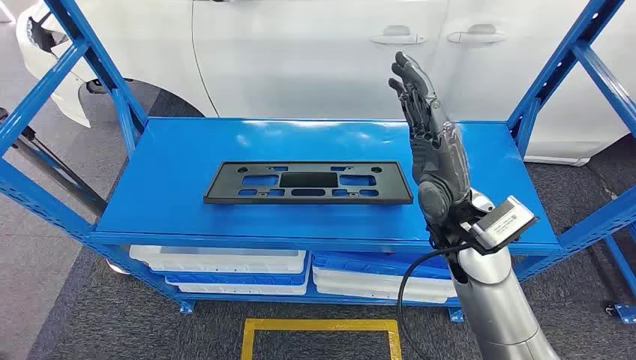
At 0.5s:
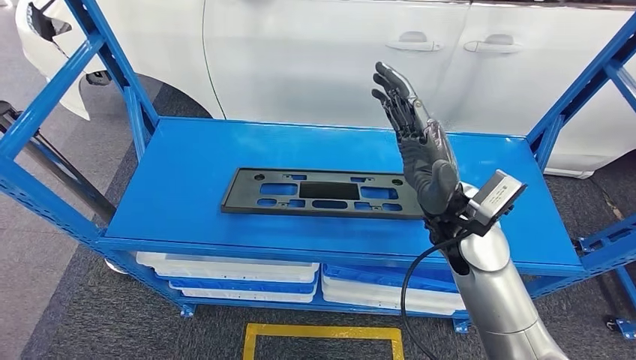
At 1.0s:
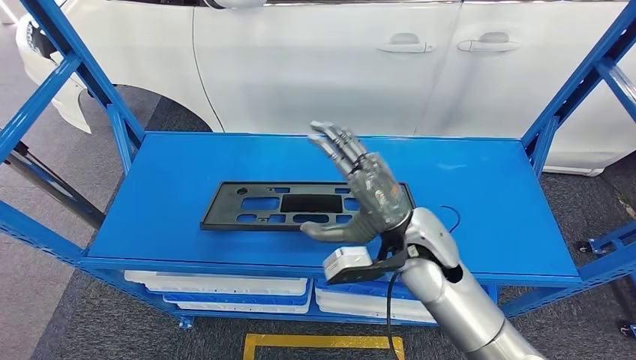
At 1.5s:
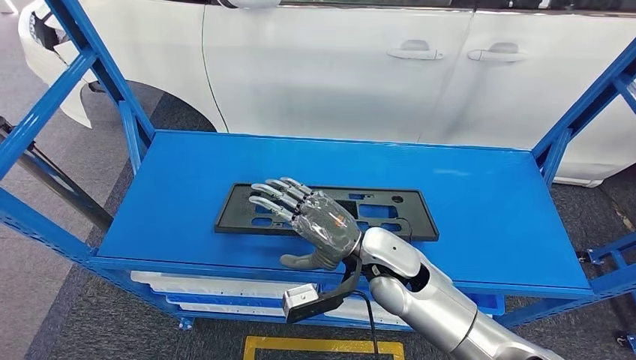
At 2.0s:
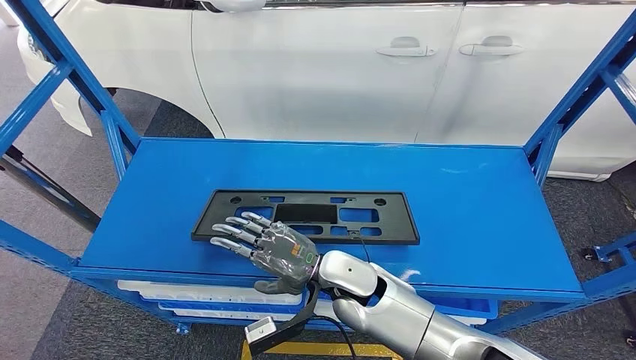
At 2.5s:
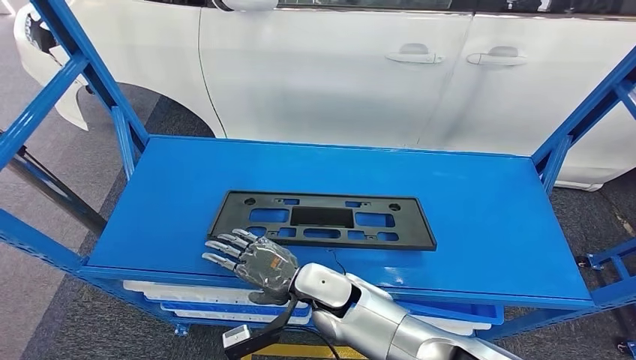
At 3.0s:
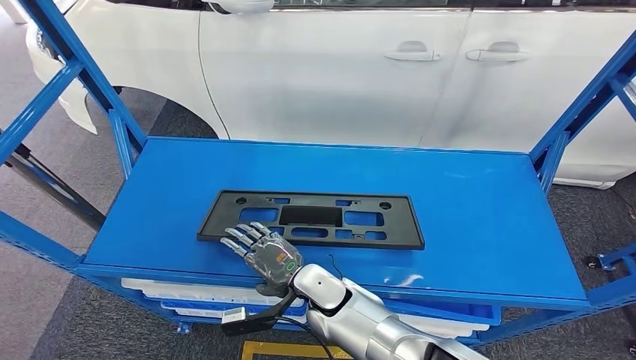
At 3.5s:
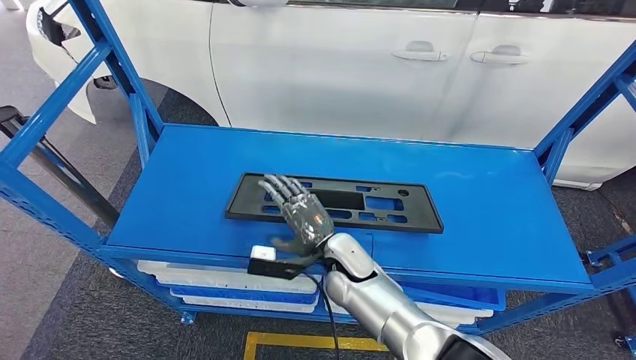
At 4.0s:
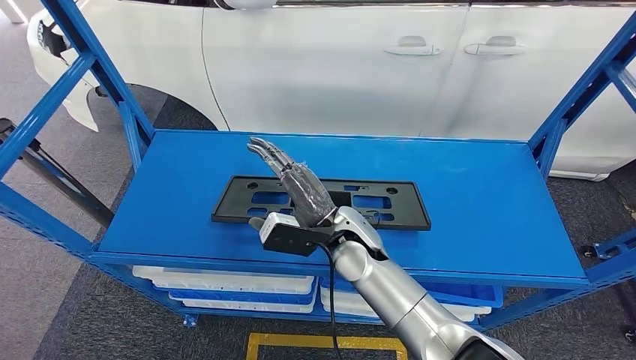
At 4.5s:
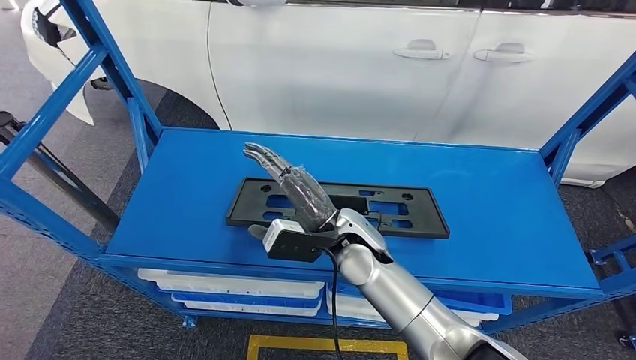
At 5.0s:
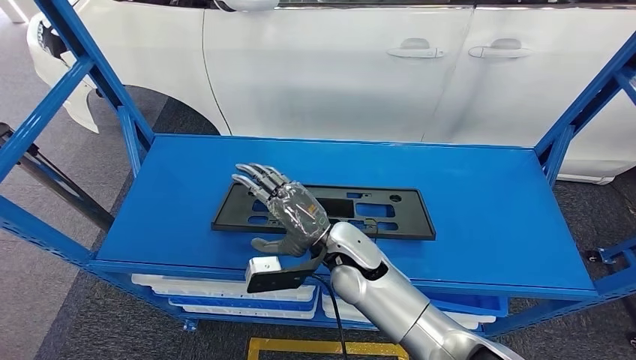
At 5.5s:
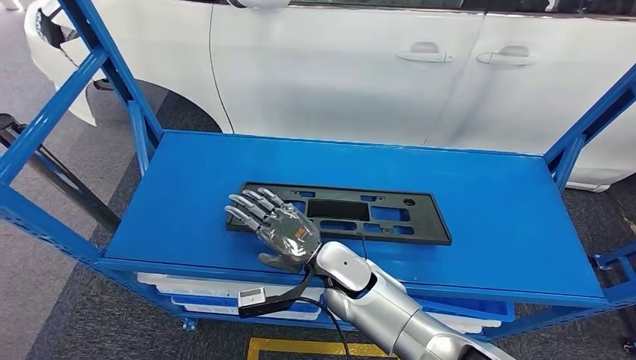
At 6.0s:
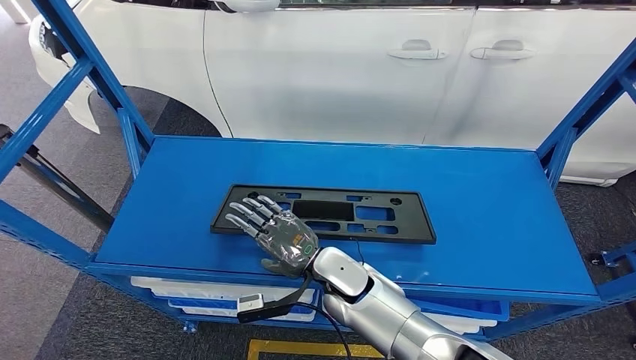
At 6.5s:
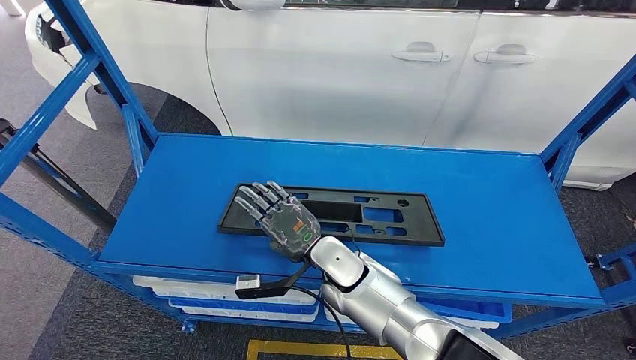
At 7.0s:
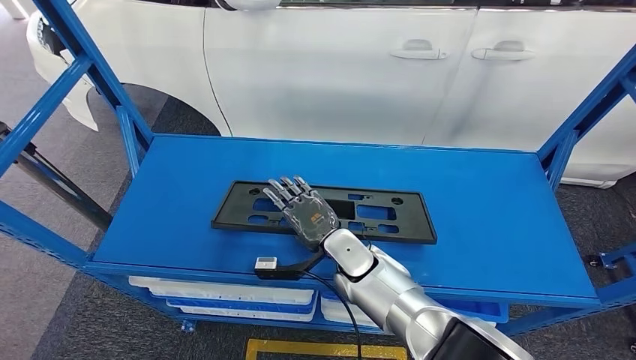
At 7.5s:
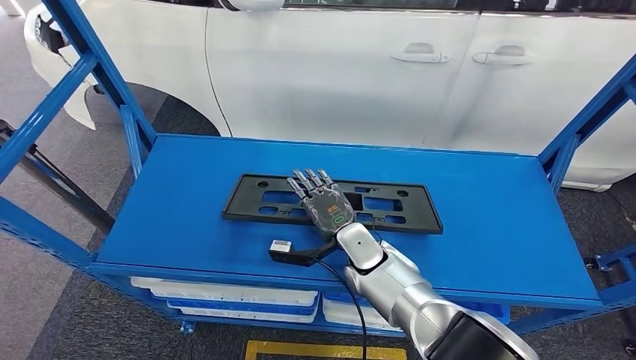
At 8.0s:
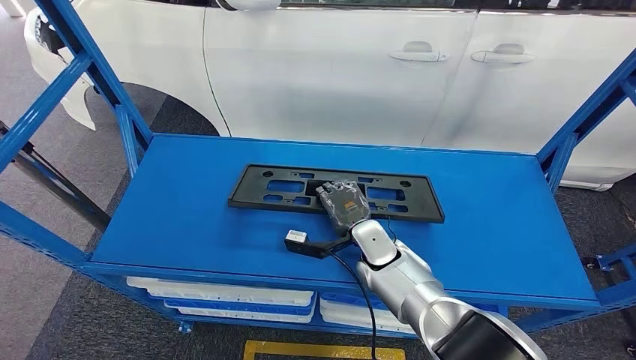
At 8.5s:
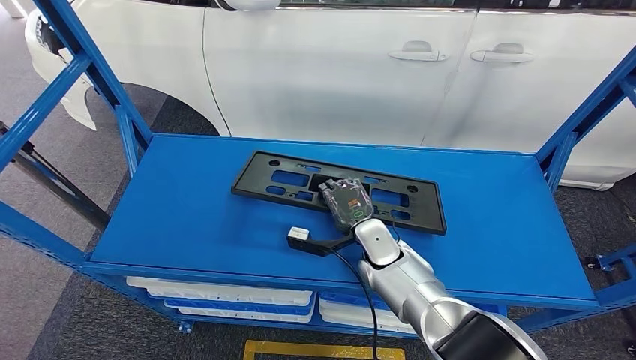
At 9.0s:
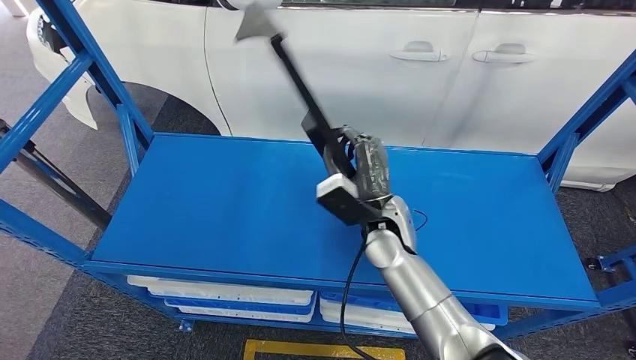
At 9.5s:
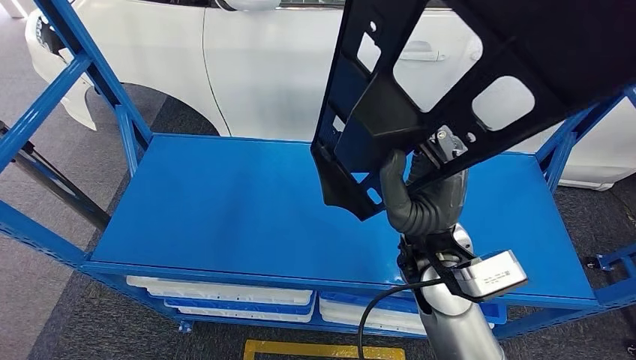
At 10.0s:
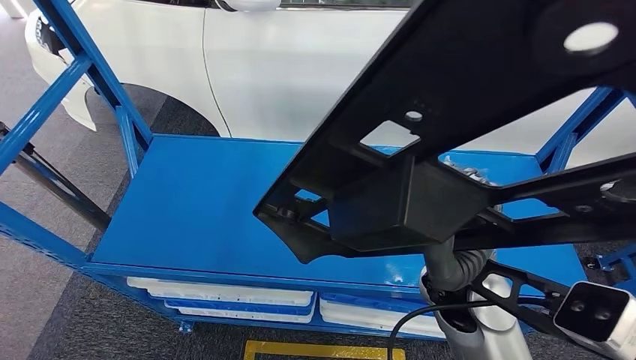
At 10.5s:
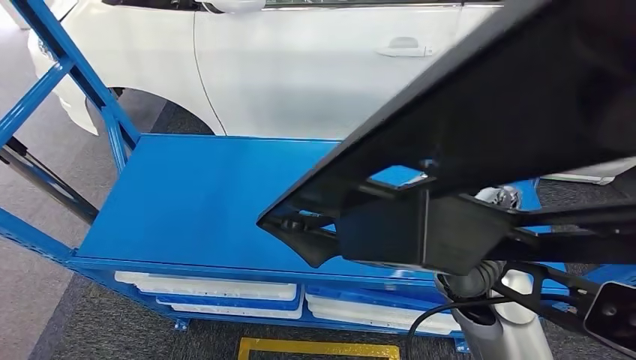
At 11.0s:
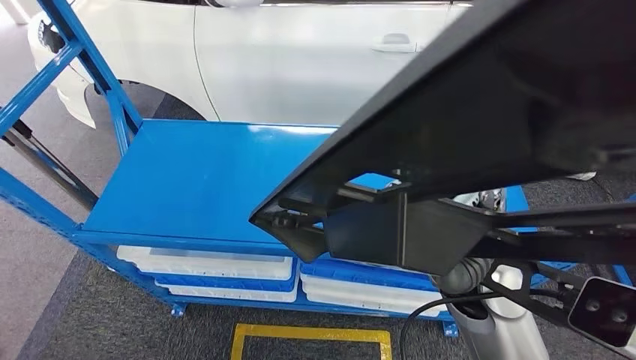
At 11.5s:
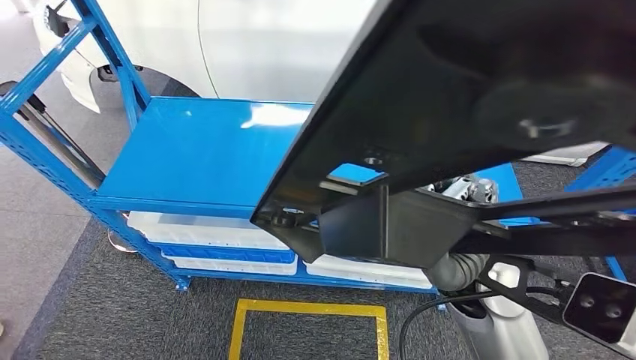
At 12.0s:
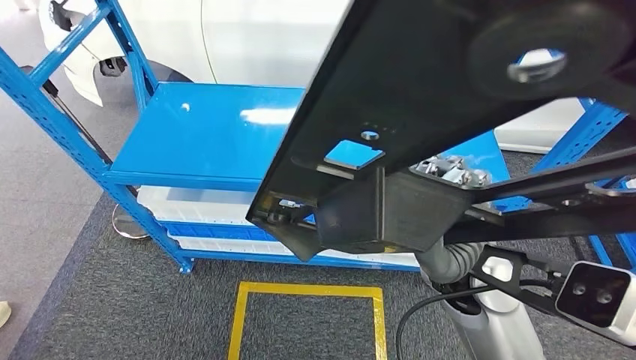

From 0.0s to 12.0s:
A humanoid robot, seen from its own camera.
Step, from 0.0s to 10.0s: Pick up the small parts from the shelf.

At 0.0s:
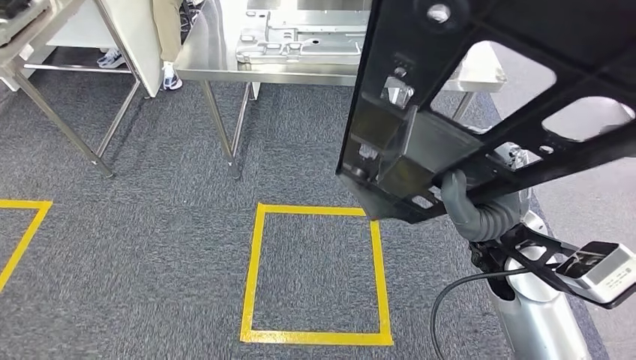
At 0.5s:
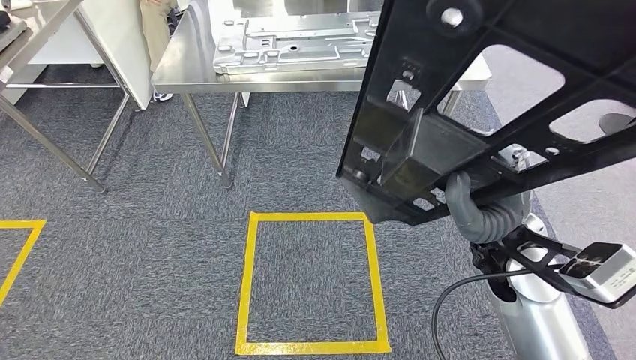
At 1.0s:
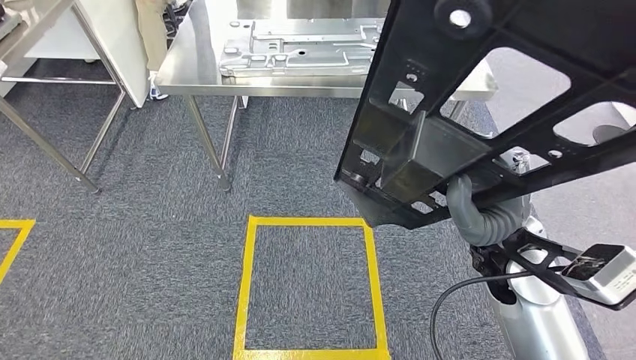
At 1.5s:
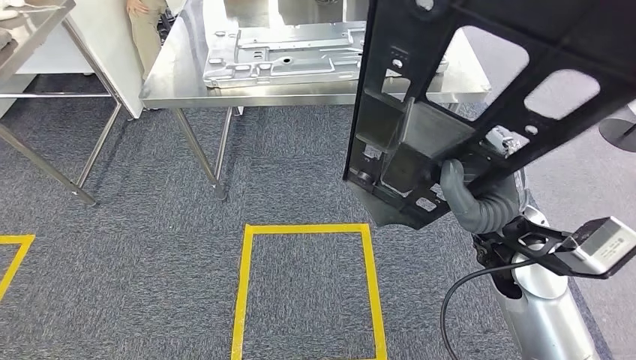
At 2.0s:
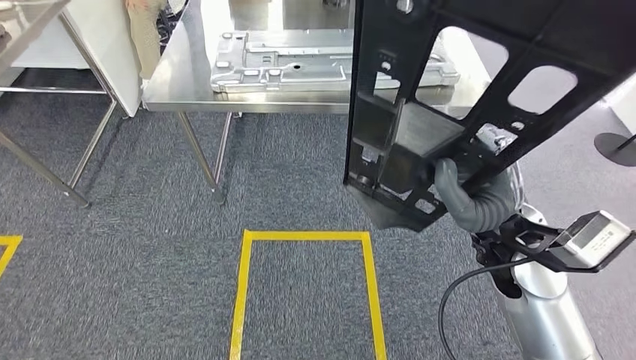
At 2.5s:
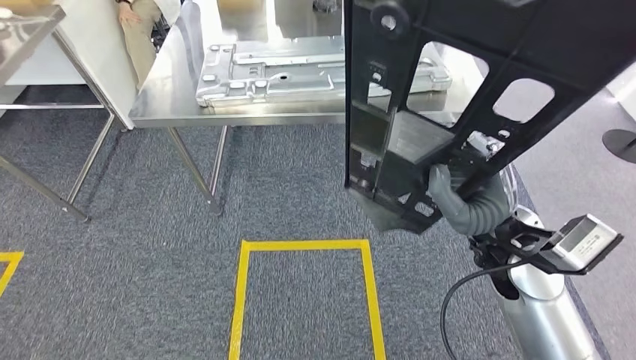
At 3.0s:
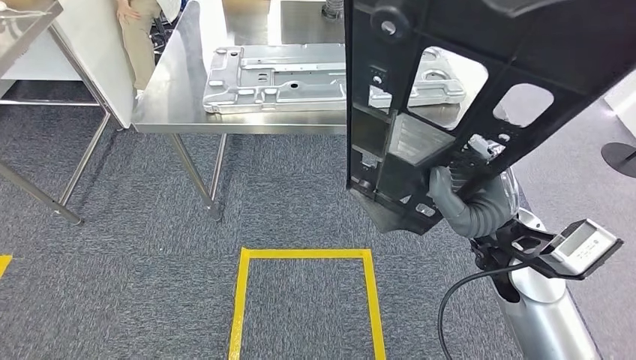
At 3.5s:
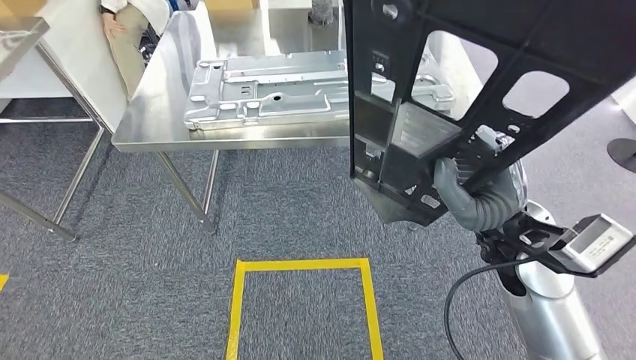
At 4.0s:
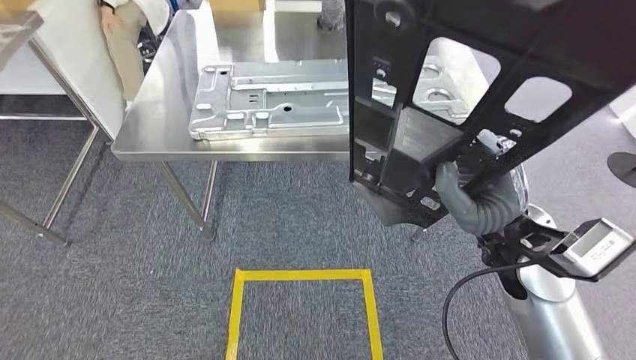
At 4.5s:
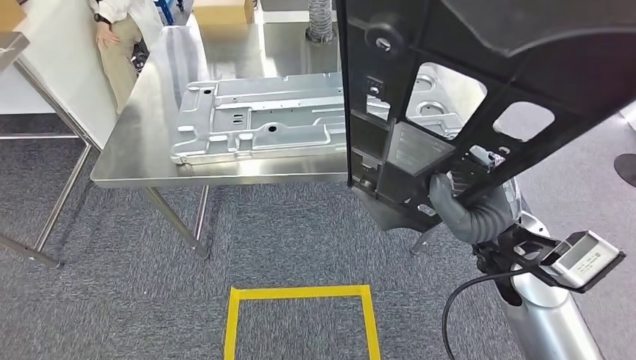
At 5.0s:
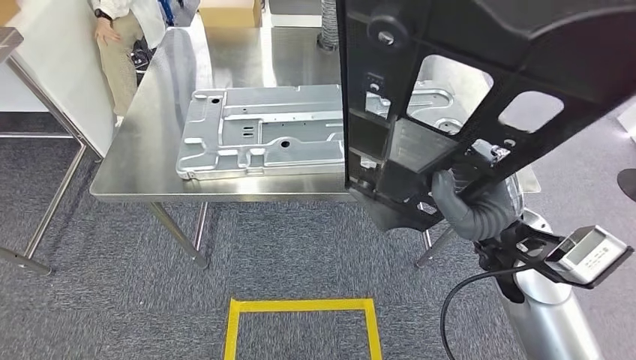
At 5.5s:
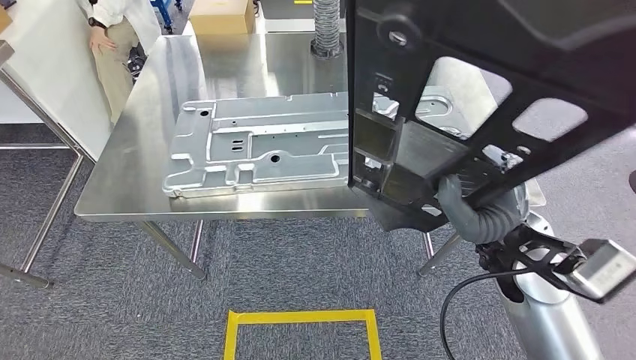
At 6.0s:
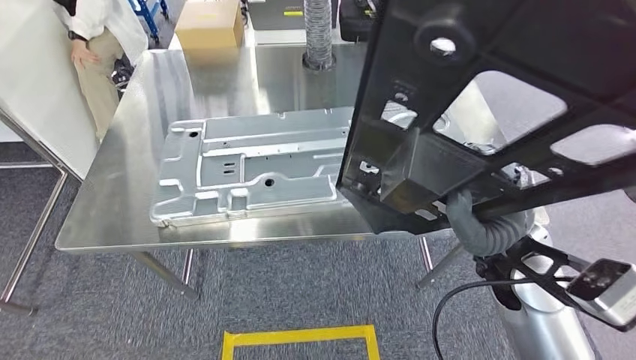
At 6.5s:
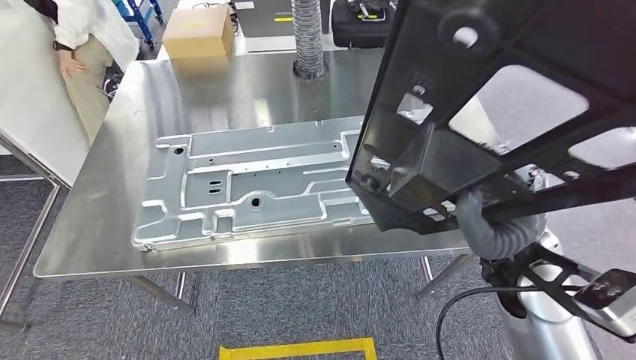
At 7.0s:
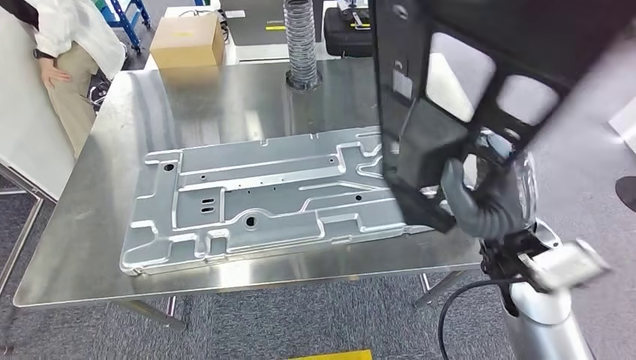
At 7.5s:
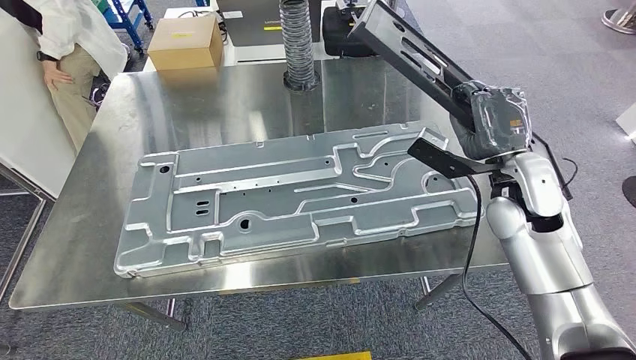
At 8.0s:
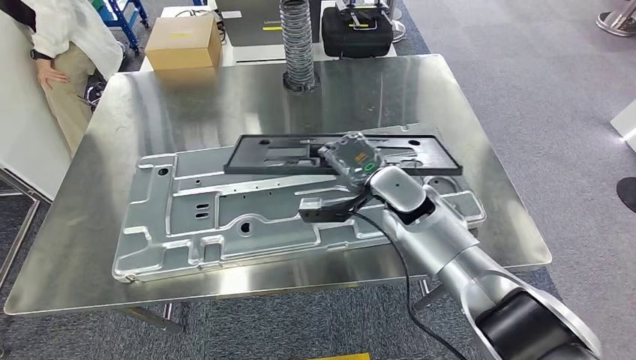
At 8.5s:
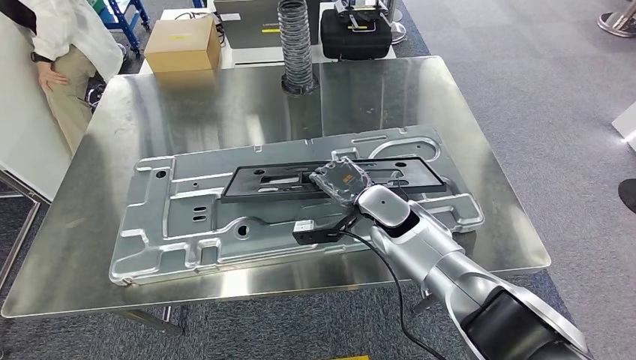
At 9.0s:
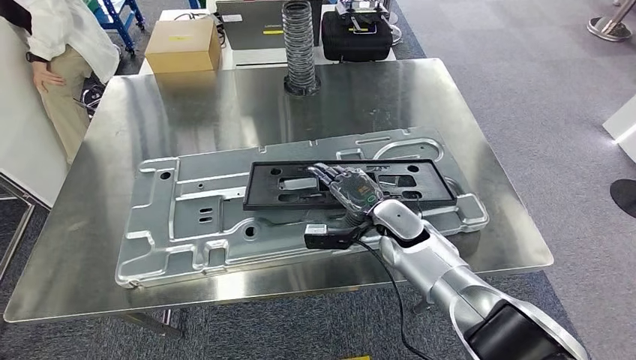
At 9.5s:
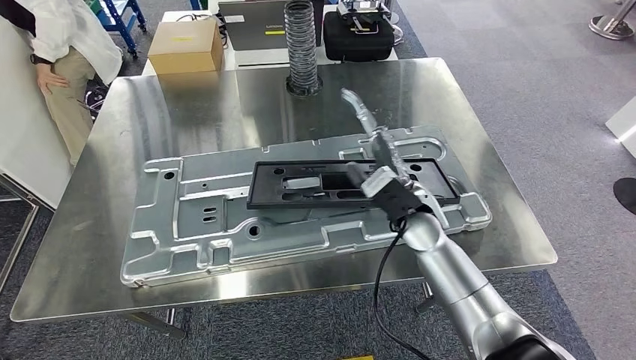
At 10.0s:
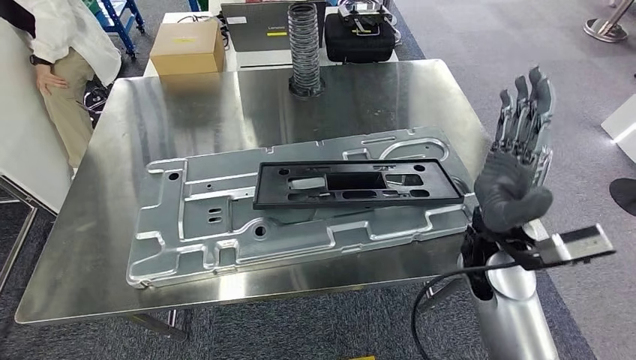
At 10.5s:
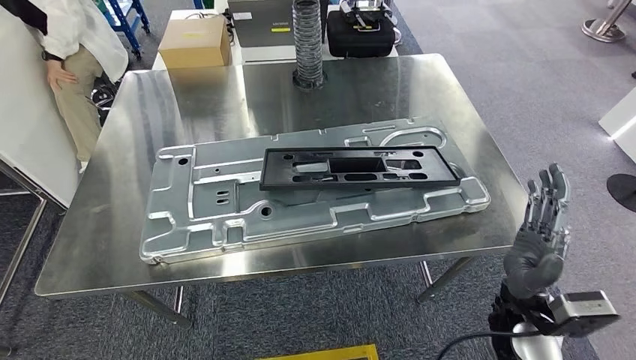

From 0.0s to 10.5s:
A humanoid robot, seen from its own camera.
Step, from 0.0s to 4.0s: Move the small parts to the workbench.
